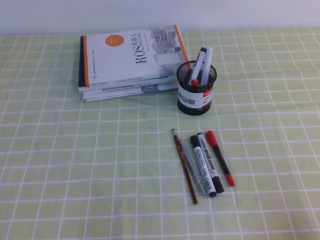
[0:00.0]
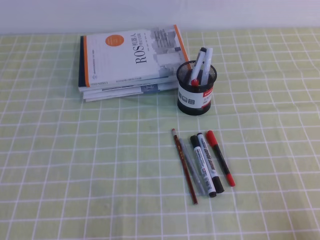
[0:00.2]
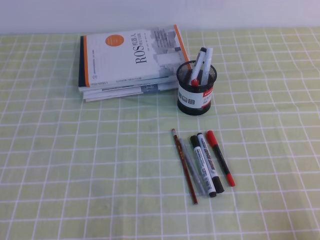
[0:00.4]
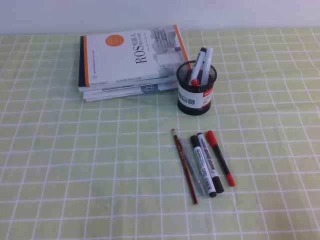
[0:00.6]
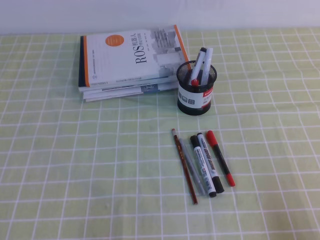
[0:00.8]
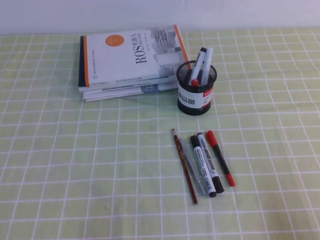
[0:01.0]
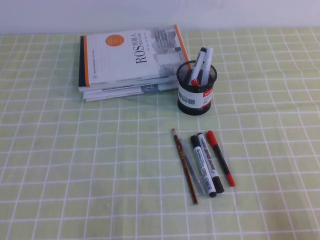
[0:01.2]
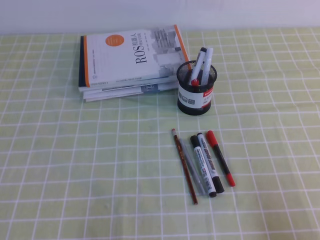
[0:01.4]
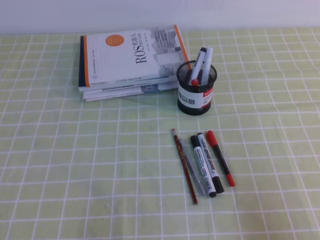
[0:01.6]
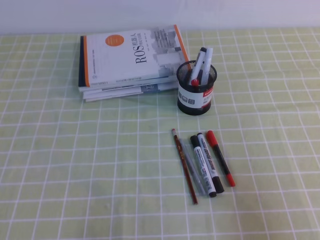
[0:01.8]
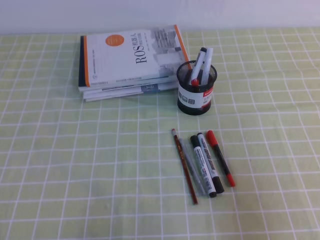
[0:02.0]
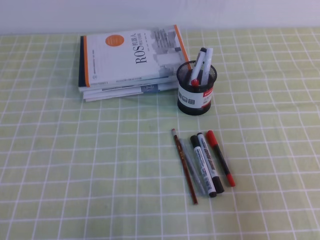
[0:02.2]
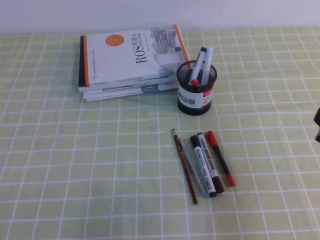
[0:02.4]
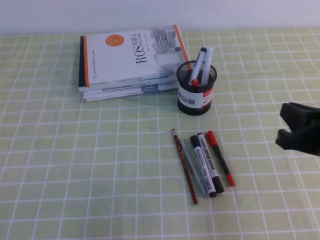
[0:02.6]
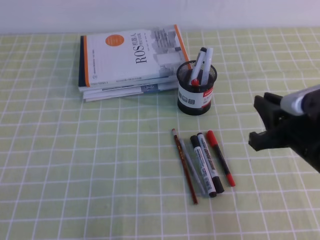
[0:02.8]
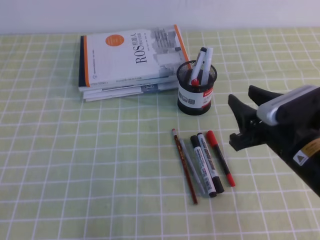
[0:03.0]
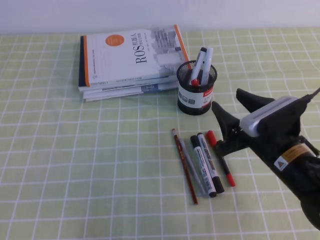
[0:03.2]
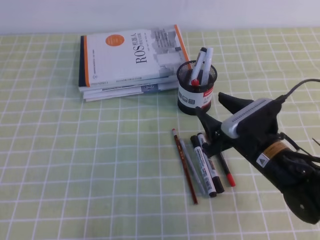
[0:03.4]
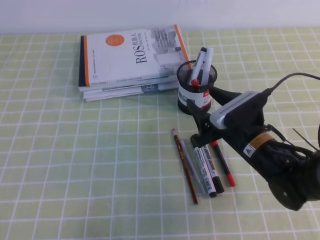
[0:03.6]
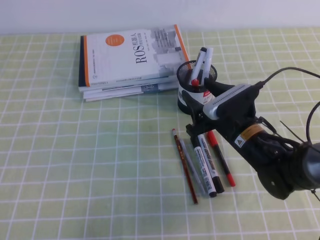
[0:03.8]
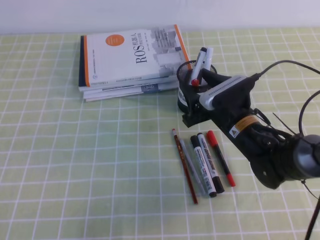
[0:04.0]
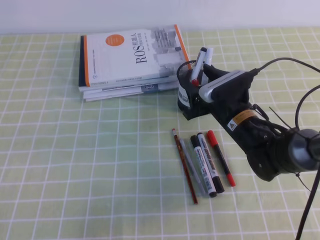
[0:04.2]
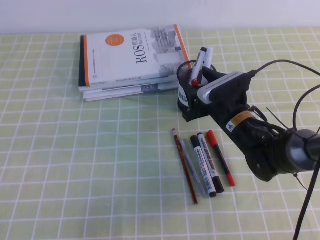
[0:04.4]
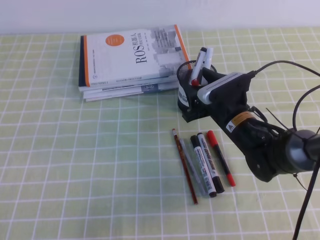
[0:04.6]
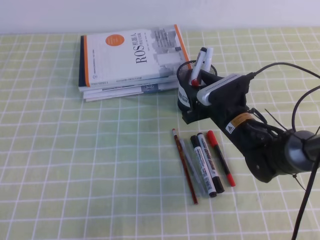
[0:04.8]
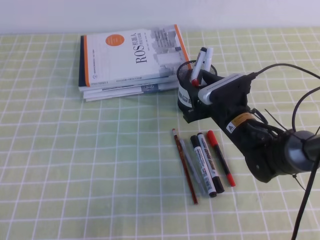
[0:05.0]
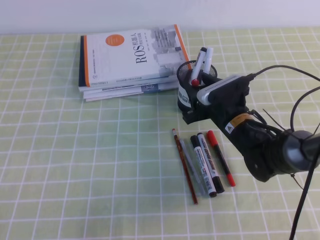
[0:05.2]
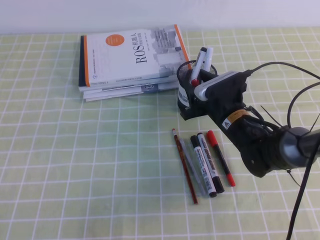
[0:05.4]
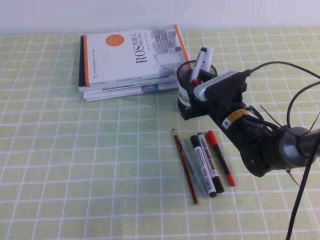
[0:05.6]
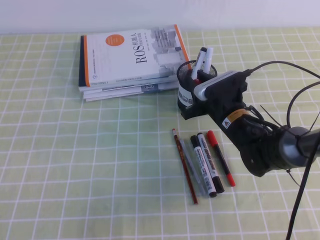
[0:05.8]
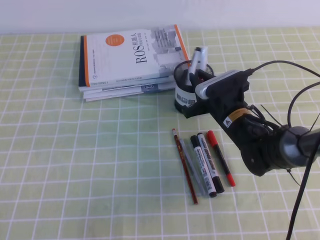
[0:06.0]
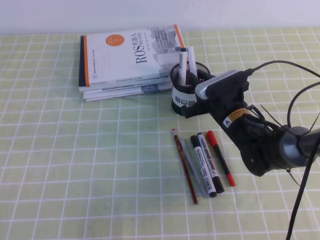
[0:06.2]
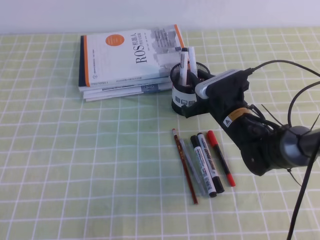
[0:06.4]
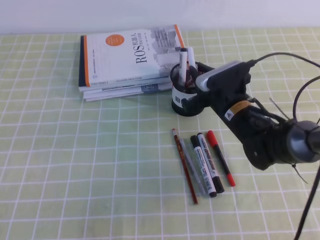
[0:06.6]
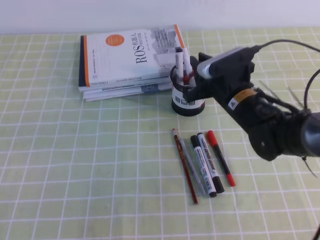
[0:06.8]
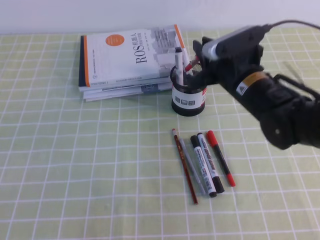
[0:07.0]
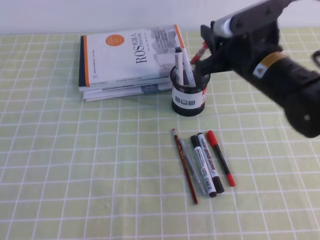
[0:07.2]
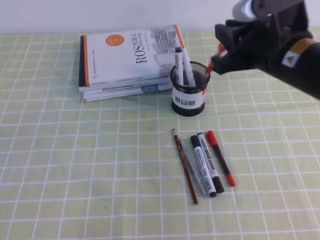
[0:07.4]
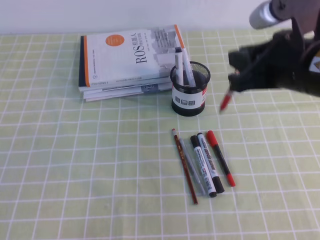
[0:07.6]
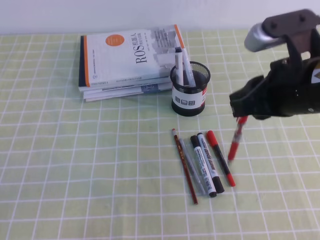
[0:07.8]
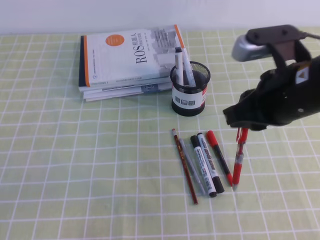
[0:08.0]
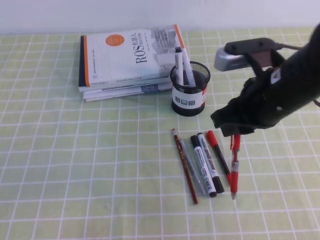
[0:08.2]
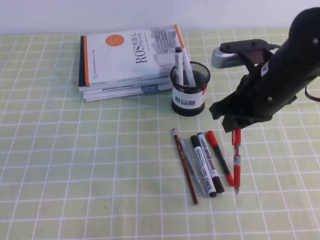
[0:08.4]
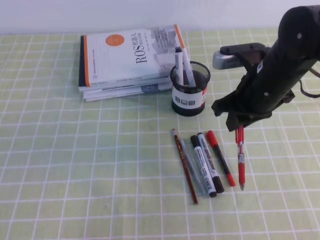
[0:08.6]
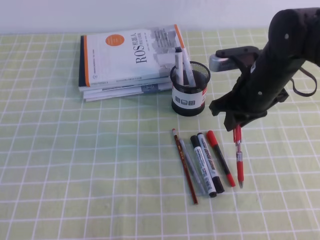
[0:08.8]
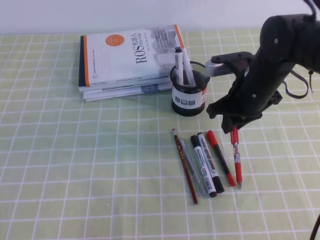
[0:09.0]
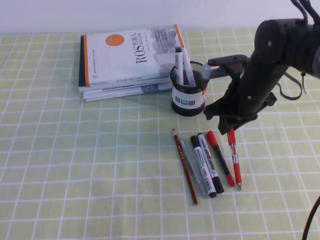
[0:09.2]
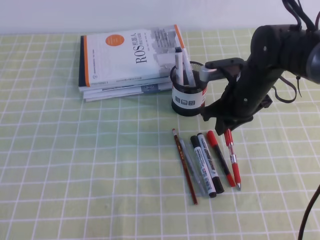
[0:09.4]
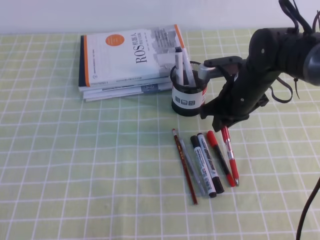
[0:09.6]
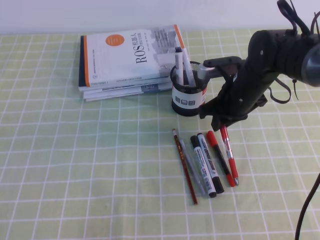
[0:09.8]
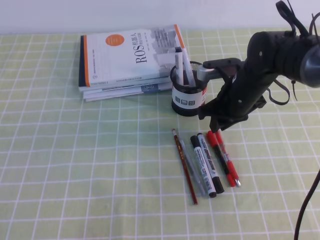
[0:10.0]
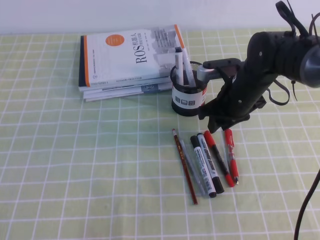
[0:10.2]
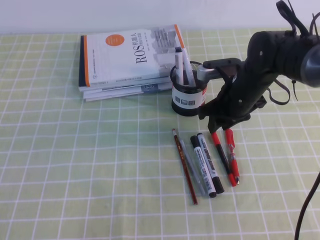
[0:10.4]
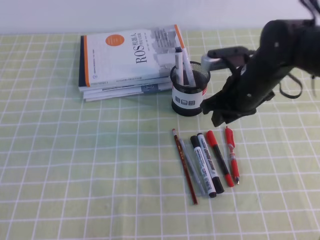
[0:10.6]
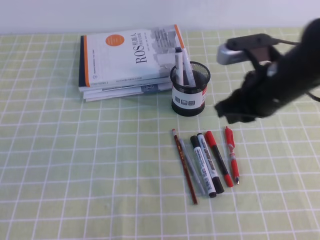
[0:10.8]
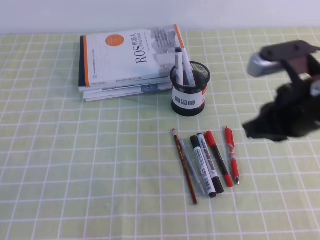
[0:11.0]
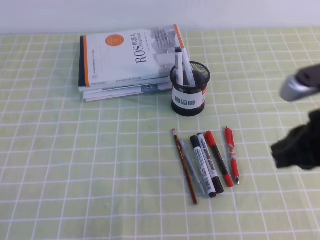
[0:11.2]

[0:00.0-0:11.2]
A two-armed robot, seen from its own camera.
0:00.0 to 0:01.6: The right gripper goes some 5 cm upward.
0:01.6 to 0:03.2: The right gripper is displaced forward and to the left by some 25 cm, and opens up.
0:03.2 to 0:04.8: The right gripper travels forward and to the left by about 10 cm.
0:04.8 to 0:06.4: The right gripper closes its fingers.
0:06.4 to 0:08.0: The right gripper shifts approximately 20 cm upward and backward.
0:08.0 to 0:09.6: The right gripper travels forward and downward by roughly 20 cm.
0:09.6 to 0:11.2: The right gripper shifts roughly 20 cm backward and upward, and opens and closes again.

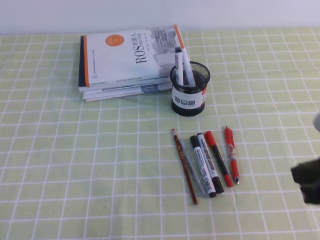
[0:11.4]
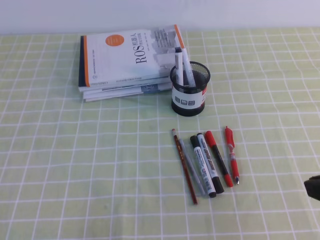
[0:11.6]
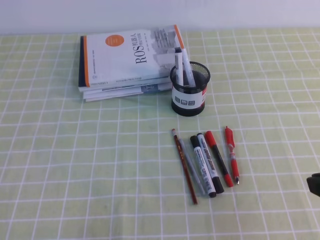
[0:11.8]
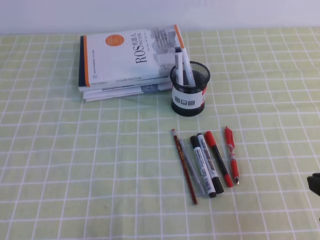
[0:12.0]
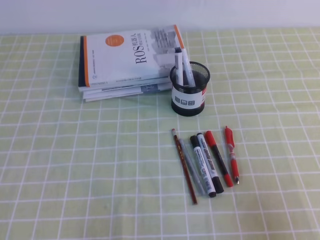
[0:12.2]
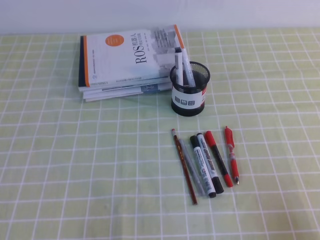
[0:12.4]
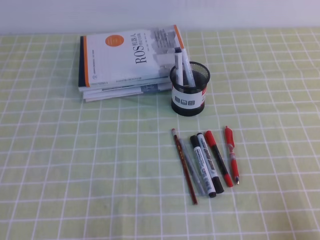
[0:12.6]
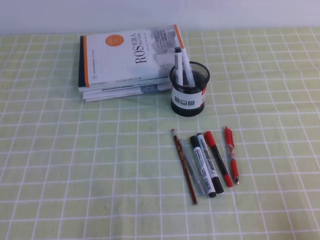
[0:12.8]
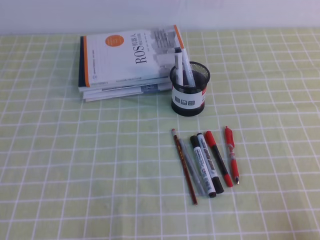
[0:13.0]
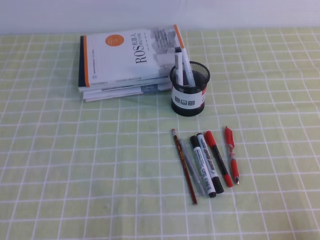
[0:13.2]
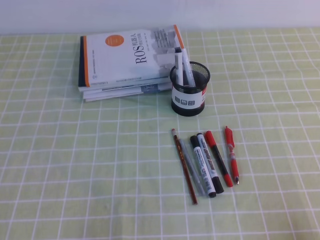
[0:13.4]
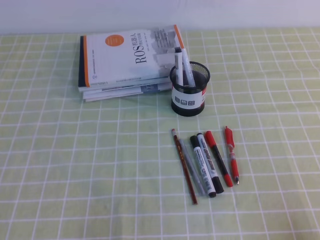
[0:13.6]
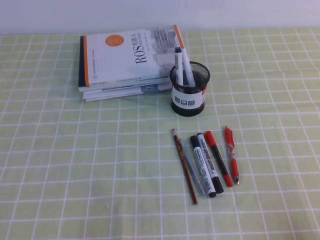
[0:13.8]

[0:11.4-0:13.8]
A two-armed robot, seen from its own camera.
Step, 0:11.4 to 0:13.8: Pick up the pen from the pen holder.
0:11.4 to 0:12.6: The right gripper is displaced downward, backward and to the right by roughly 20 cm.

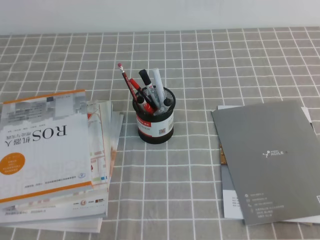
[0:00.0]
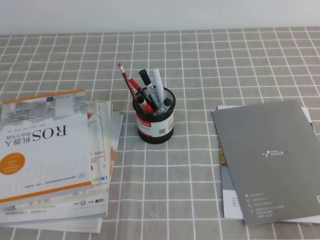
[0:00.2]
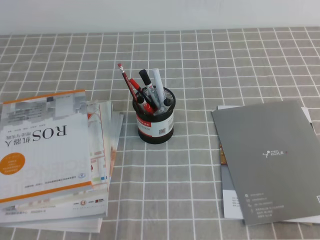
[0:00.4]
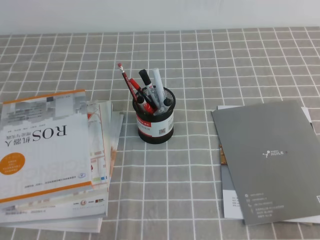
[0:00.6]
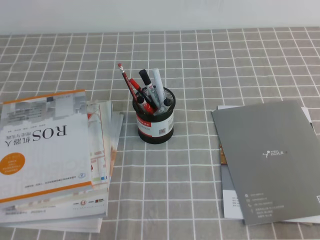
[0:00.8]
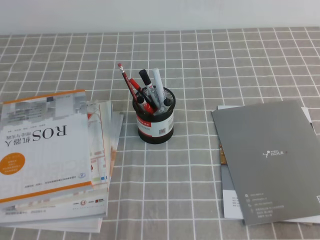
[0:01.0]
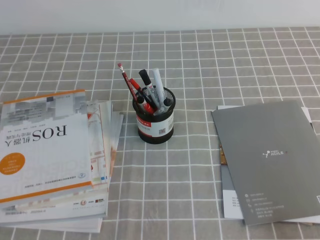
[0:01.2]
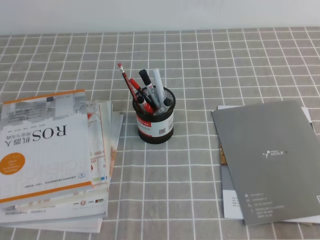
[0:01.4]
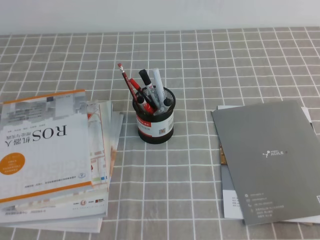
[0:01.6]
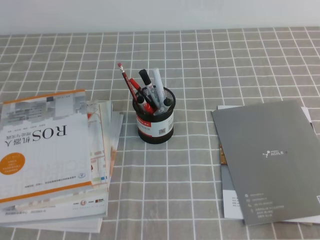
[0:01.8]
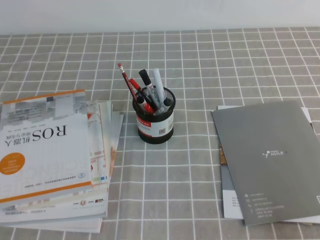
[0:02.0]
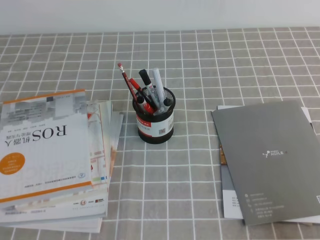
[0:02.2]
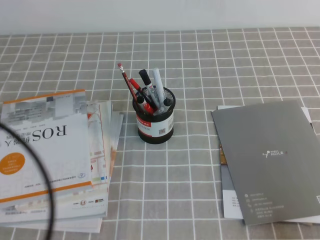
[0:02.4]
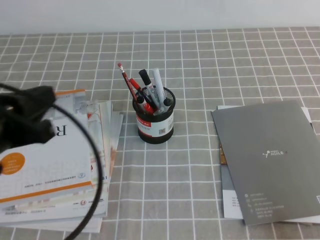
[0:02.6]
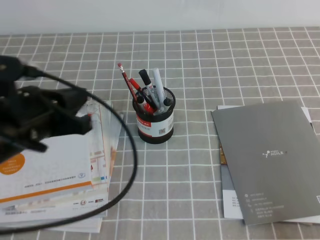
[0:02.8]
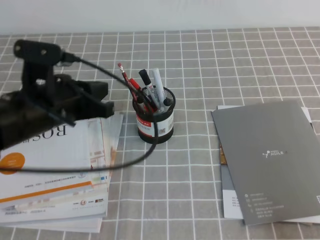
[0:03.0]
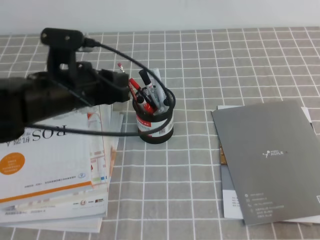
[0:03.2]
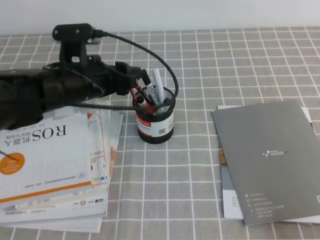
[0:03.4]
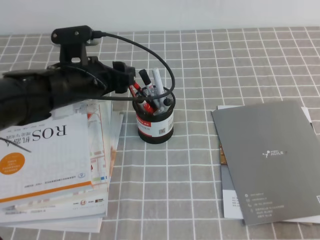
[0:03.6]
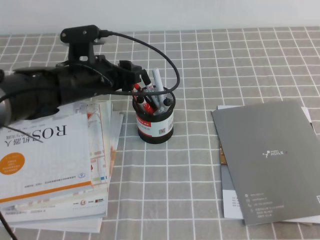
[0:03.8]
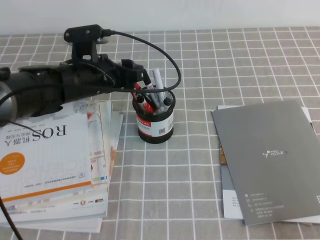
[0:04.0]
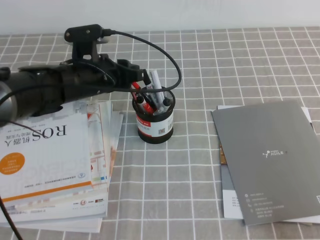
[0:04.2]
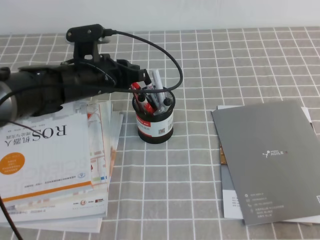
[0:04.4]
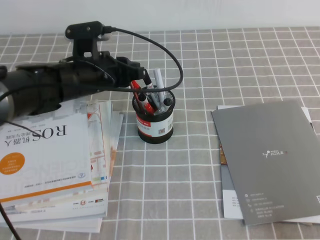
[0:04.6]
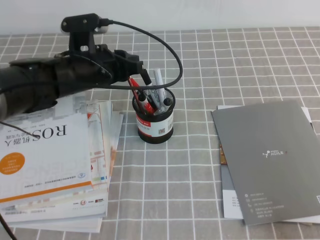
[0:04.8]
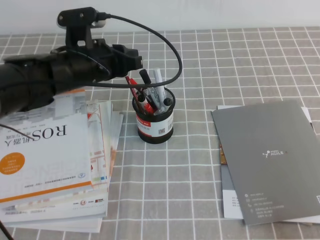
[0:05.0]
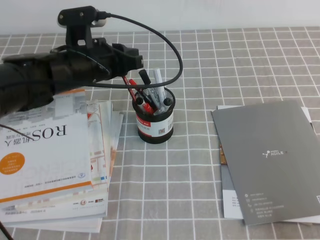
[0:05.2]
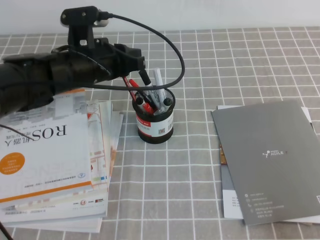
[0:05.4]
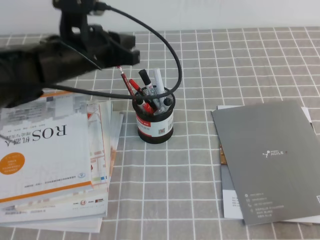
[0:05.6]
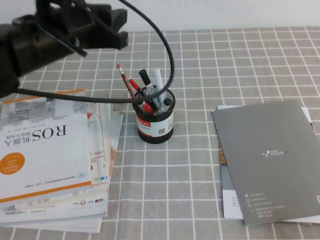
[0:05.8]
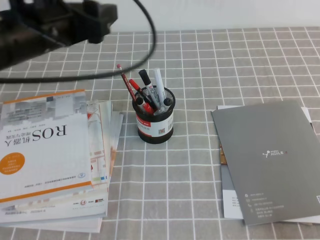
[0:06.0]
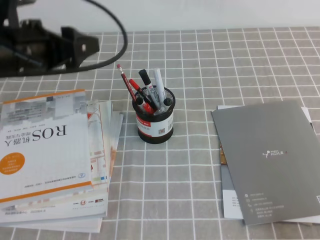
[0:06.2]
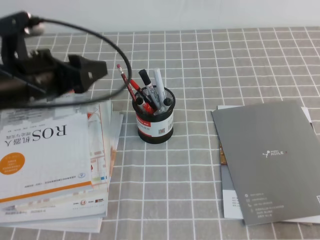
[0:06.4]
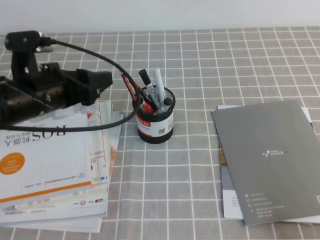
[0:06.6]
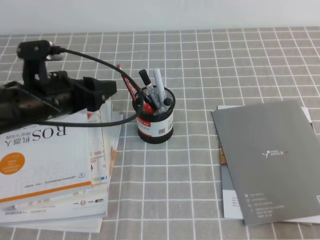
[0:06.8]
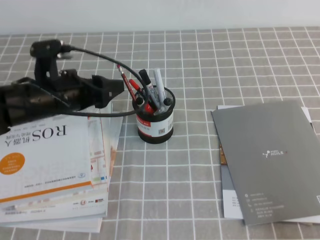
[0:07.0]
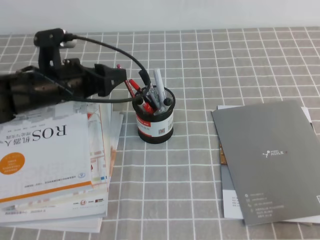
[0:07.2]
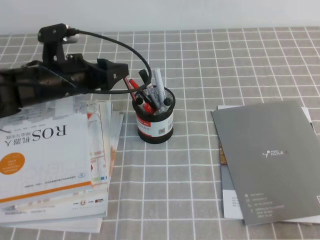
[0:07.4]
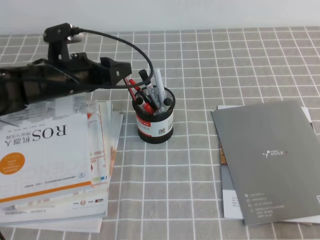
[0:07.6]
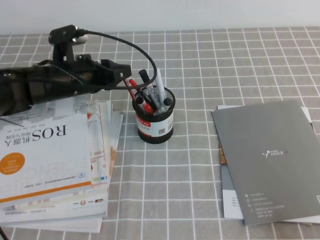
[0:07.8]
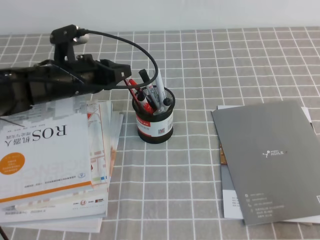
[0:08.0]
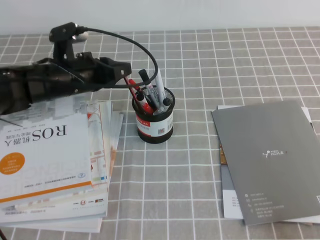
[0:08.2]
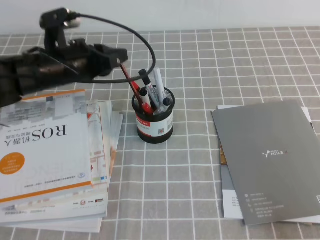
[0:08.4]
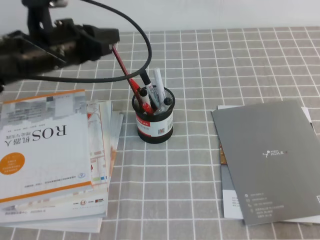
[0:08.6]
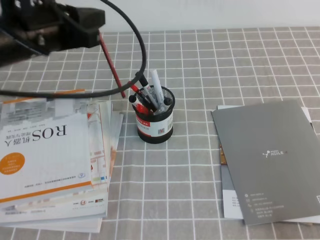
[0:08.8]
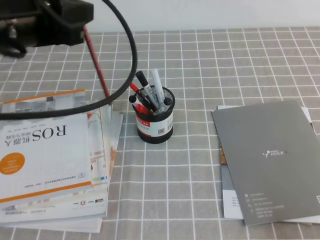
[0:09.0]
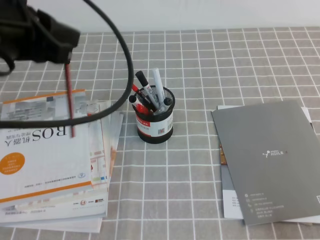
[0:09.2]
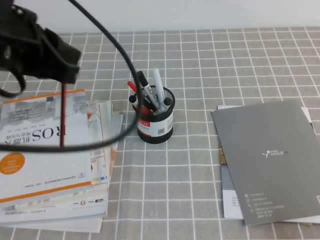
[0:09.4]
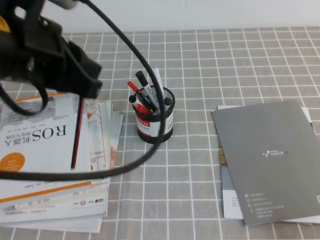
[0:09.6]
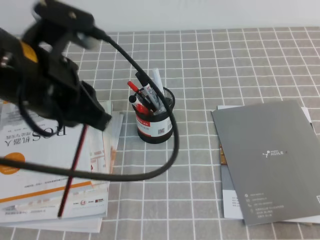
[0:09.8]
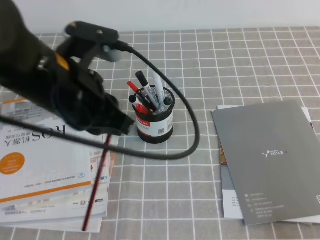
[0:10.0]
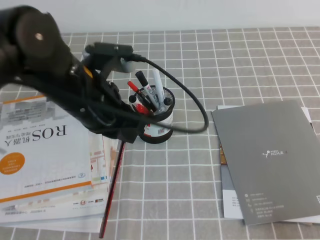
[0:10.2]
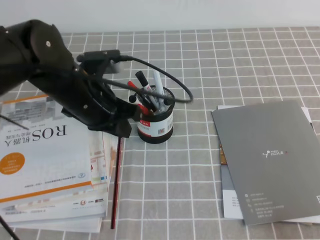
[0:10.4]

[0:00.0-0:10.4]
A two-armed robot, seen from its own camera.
0:01.4 to 0:03.0: The left gripper heads forward, to the right and upward, covering roughly 20 cm.
0:03.0 to 0:04.4: The left gripper is displaced forward, to the right and downward by some 15 cm, and opens its fingers.
0:04.4 to 0:06.0: The left gripper is displaced upward and backward by approximately 10 cm, and closes, then opens again.
0:06.0 to 0:07.4: The left gripper shifts some 10 cm downward.
0:07.4 to 0:09.0: The left gripper moves upward and backward, some 15 cm, and closes its fingers.
0:09.0 to 0:10.4: The left gripper moves downward and to the right, about 10 cm.
